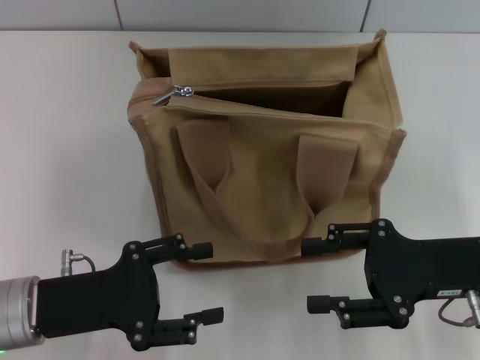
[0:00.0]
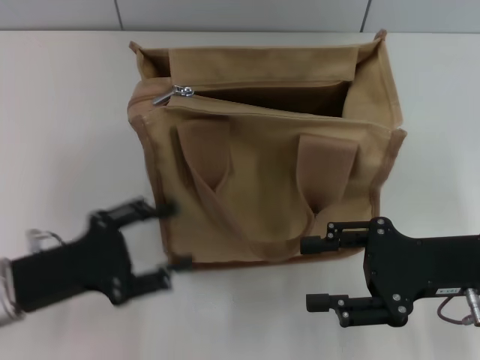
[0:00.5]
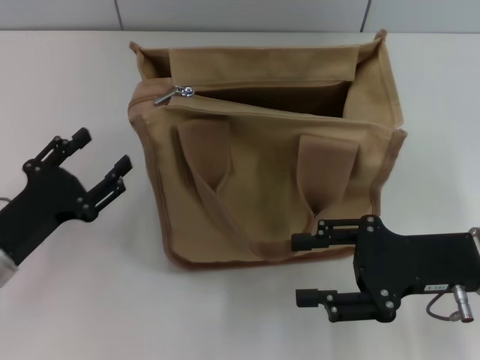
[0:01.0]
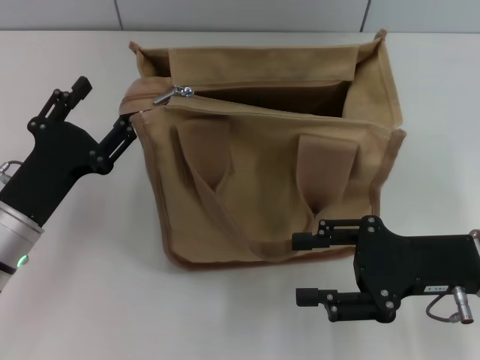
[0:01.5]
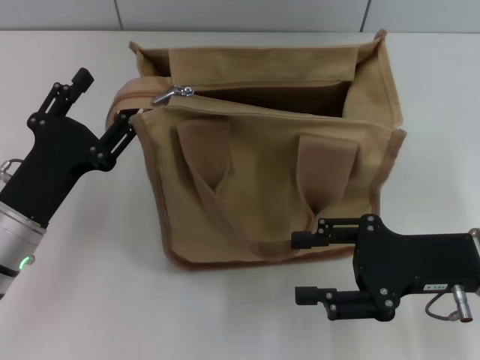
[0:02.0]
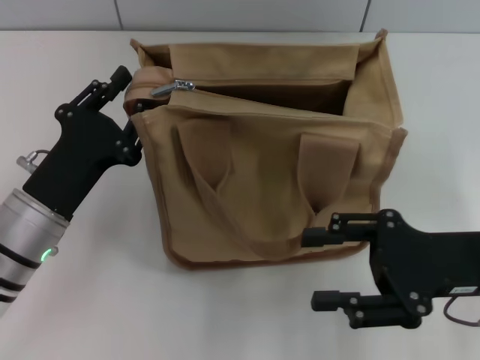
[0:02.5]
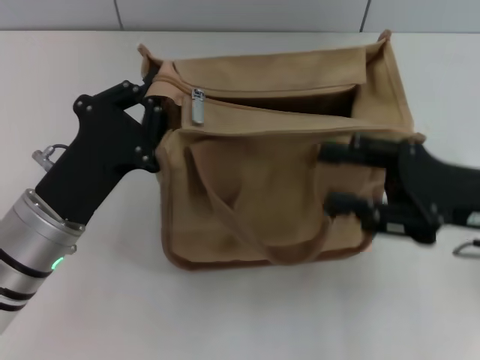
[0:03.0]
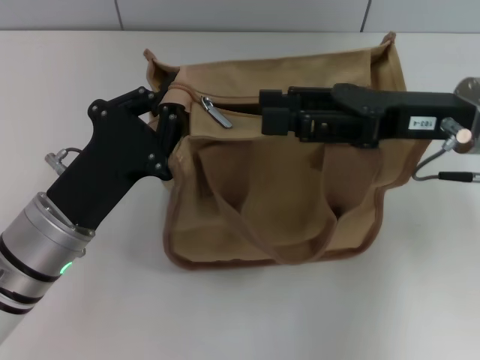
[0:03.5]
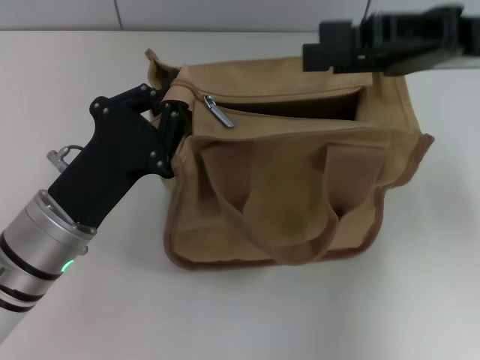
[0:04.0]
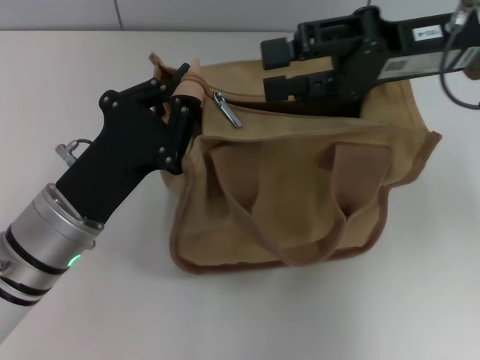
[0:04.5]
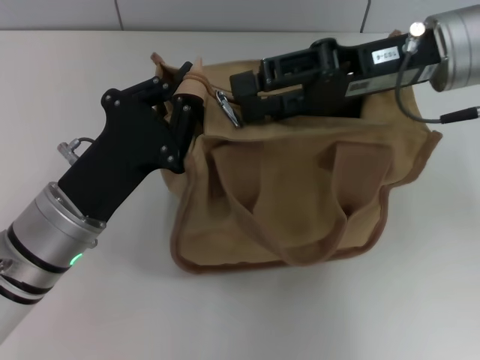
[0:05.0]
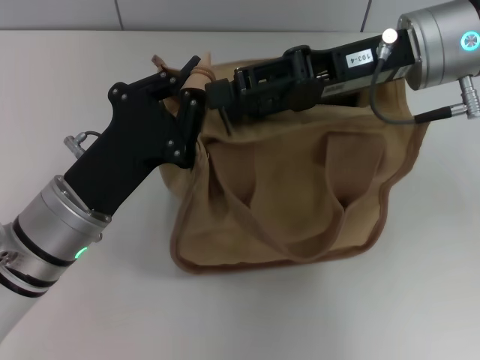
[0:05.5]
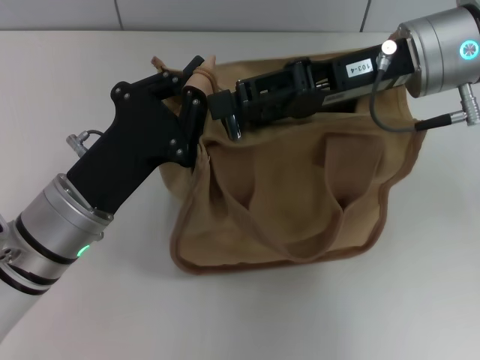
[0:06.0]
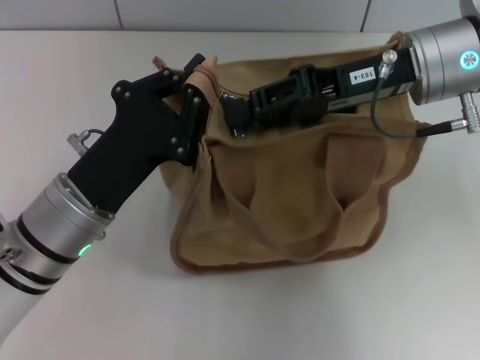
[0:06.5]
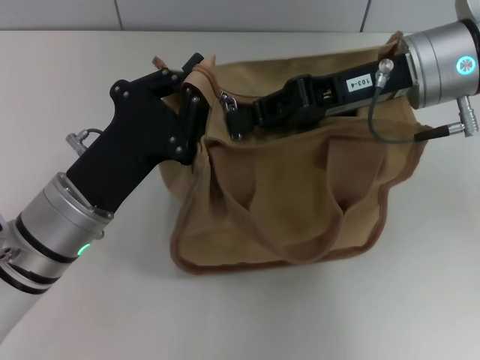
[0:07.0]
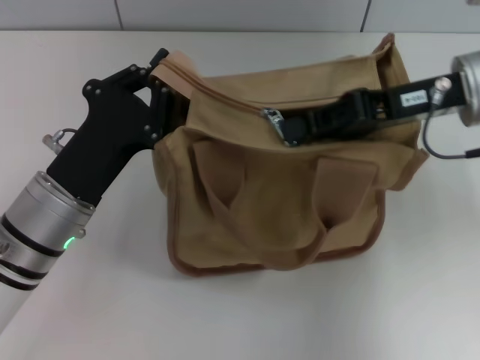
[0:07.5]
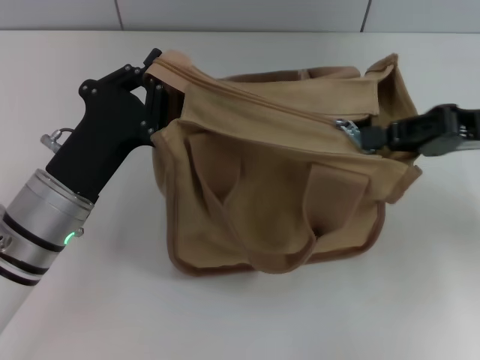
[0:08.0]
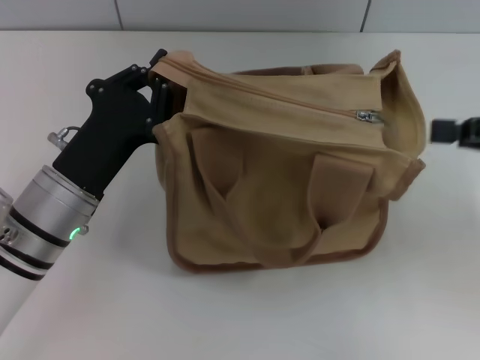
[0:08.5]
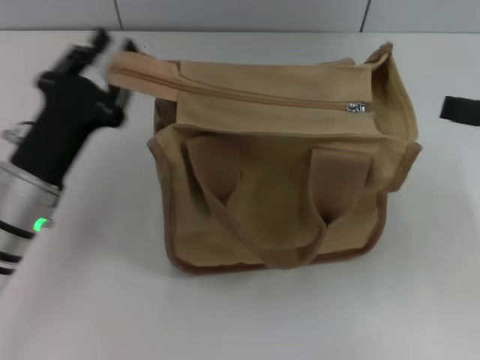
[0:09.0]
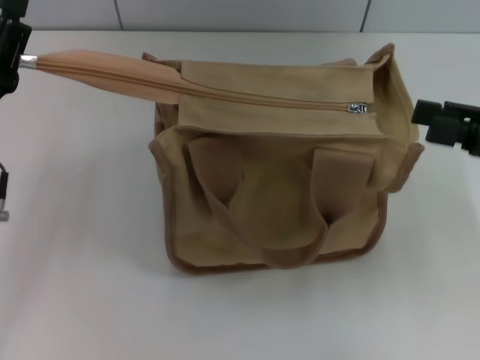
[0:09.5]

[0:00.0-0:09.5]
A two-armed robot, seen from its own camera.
Step, 0:00.0 to 0:08.0: Pull up the zipper with your right hand.
0:02.0 to 0:04.0: The right gripper travels upward and forward by some 20 cm. Meanwhile the left gripper changes place by some 5 cm, and closes its fingers.
0:04.0 to 0:05.5: The right gripper travels to the left by approximately 5 cm.
0:05.5 to 0:07.5: The right gripper moves to the right, about 5 cm, and closes up.
0:07.5 to 0:09.5: The left gripper travels to the left by approximately 5 cm, and opens up; the right gripper is displaced to the right and backward by about 15 cm, and opens.

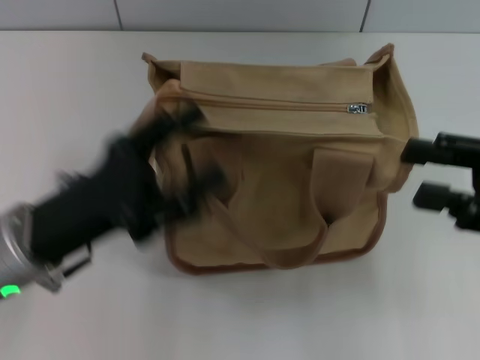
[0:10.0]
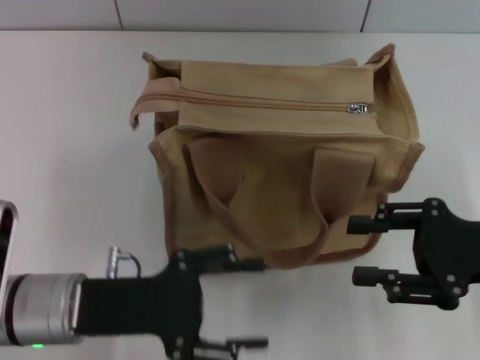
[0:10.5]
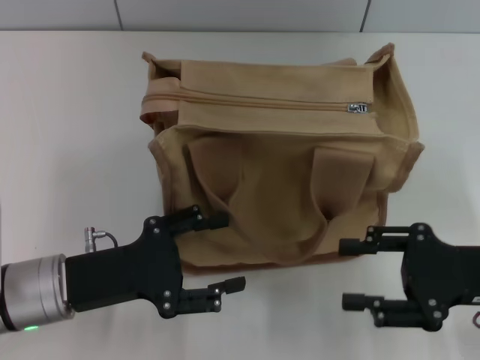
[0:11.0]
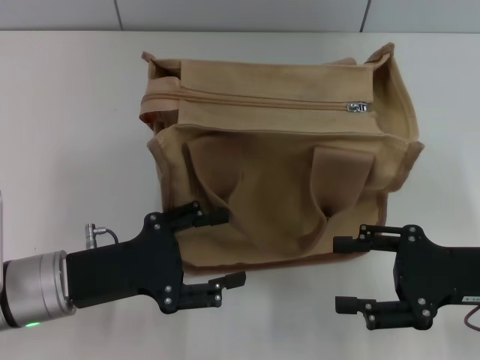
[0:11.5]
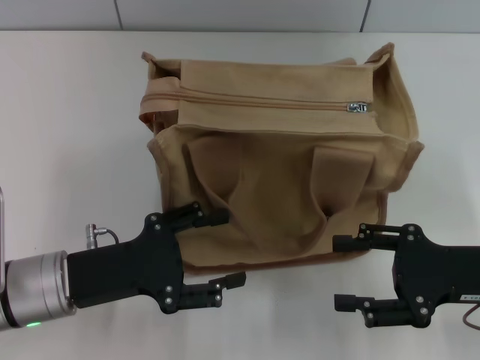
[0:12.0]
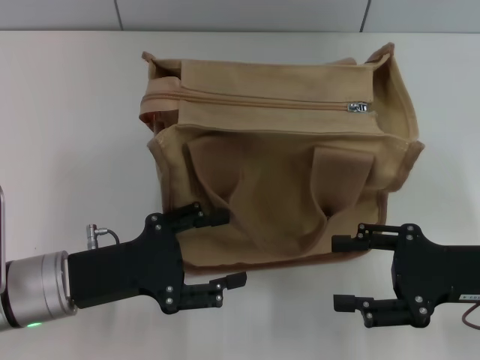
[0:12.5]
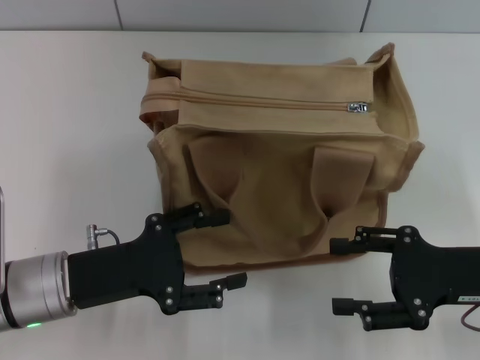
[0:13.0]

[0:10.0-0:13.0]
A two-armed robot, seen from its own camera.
0:10.0 to 0:11.5: The right gripper heads downward, covering about 5 cm.
0:11.5 to 0:13.0: Both grippers stay put.
